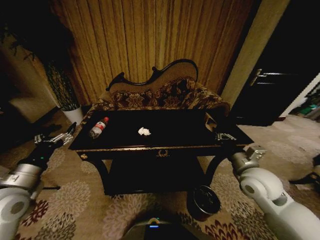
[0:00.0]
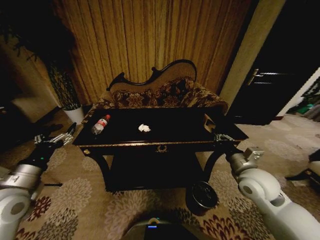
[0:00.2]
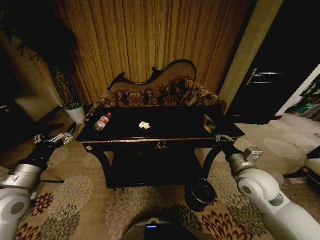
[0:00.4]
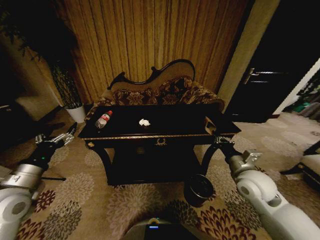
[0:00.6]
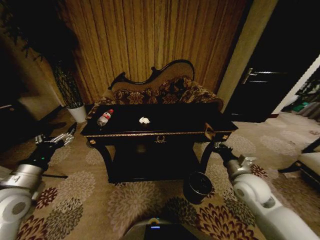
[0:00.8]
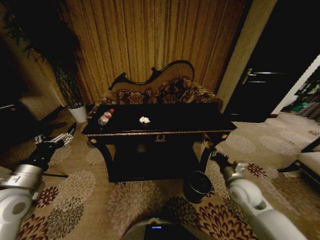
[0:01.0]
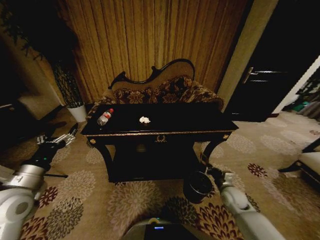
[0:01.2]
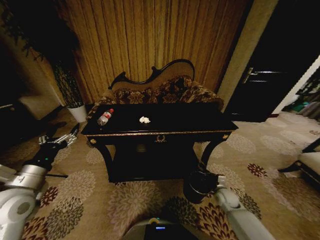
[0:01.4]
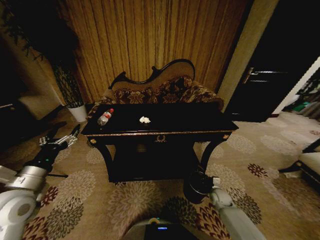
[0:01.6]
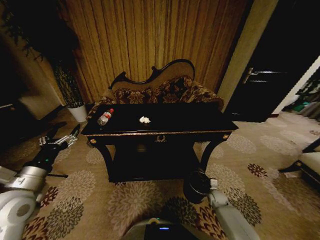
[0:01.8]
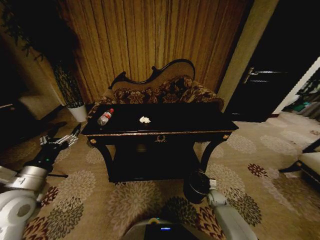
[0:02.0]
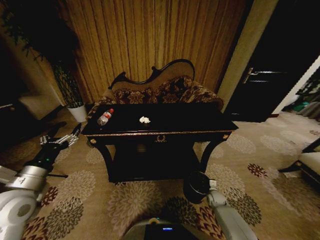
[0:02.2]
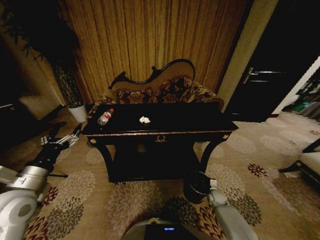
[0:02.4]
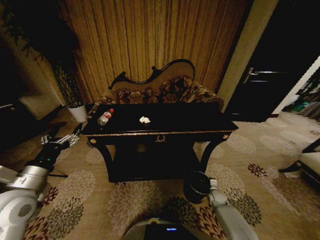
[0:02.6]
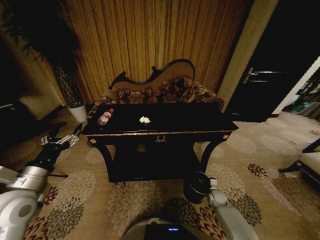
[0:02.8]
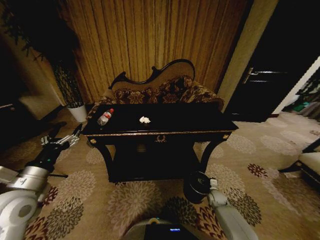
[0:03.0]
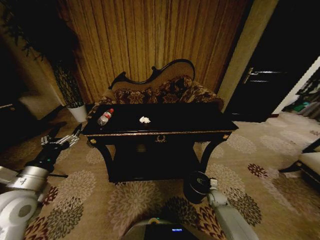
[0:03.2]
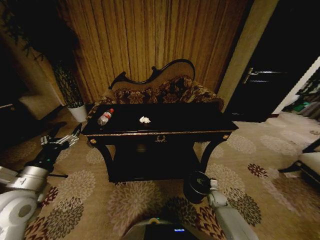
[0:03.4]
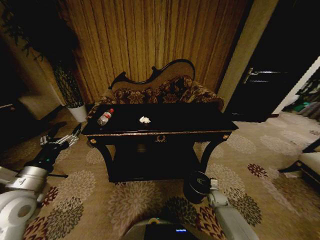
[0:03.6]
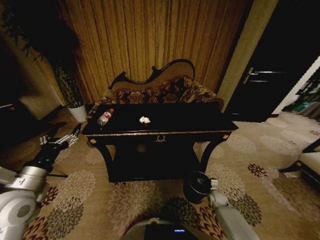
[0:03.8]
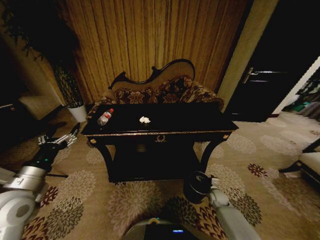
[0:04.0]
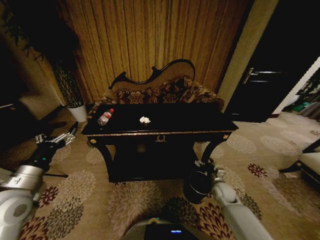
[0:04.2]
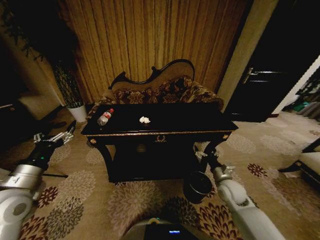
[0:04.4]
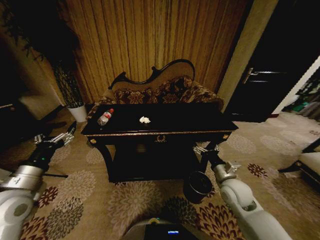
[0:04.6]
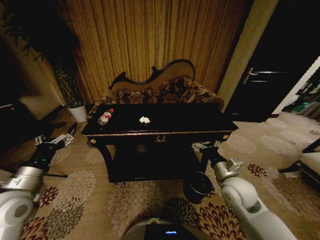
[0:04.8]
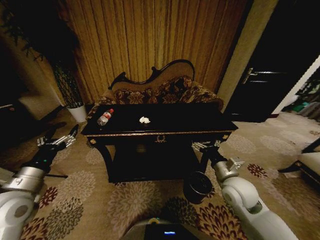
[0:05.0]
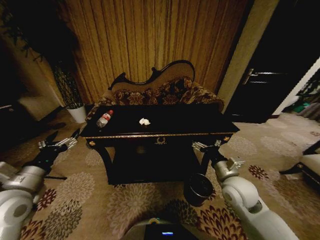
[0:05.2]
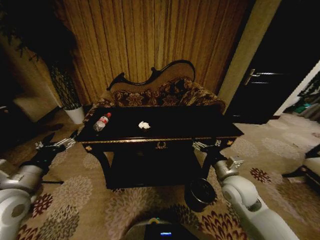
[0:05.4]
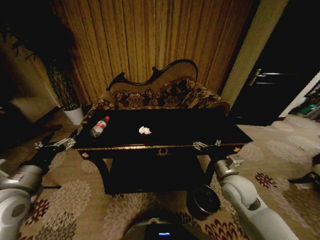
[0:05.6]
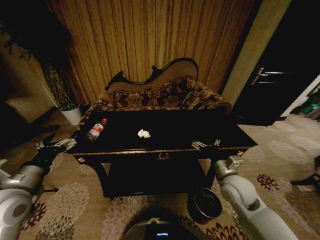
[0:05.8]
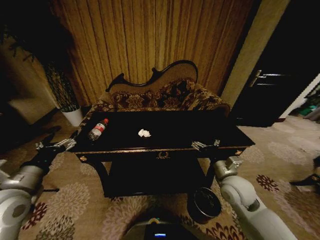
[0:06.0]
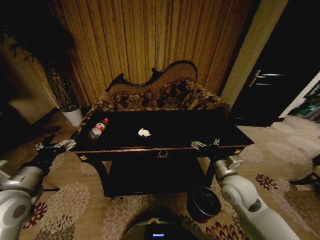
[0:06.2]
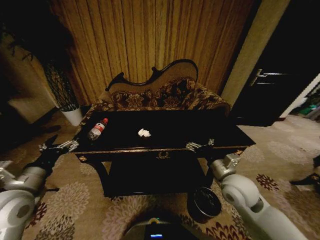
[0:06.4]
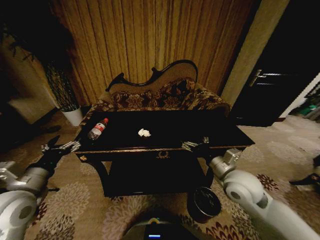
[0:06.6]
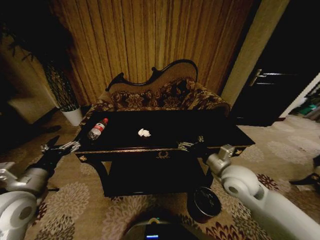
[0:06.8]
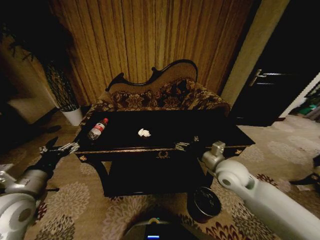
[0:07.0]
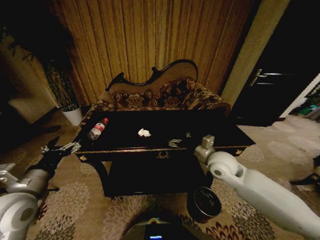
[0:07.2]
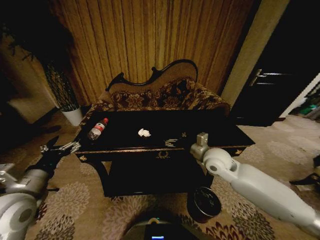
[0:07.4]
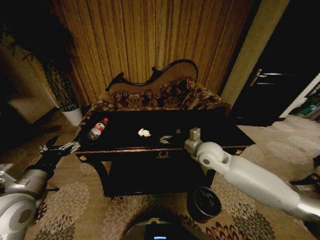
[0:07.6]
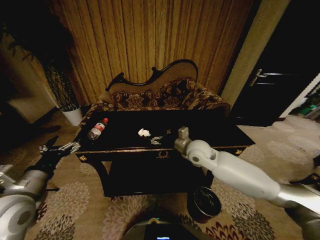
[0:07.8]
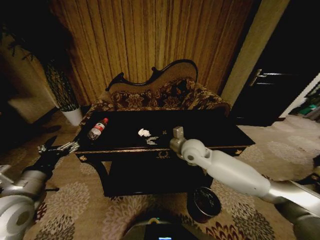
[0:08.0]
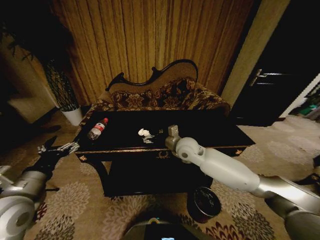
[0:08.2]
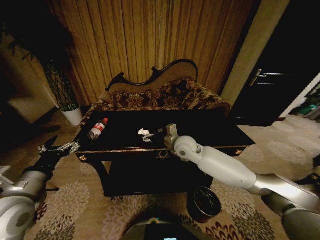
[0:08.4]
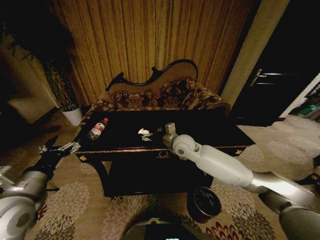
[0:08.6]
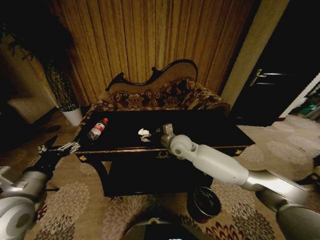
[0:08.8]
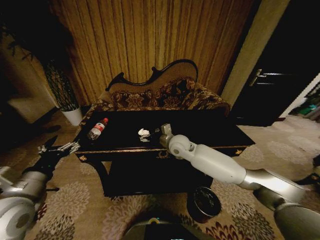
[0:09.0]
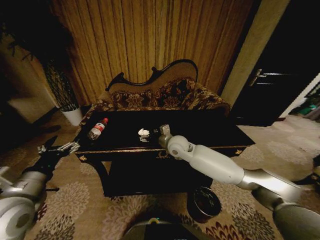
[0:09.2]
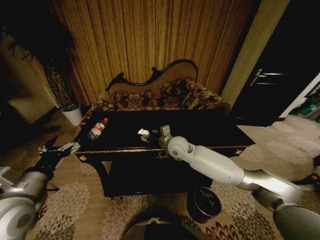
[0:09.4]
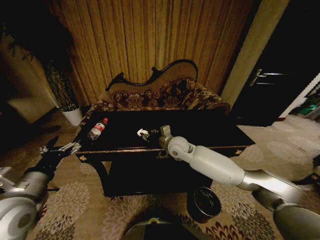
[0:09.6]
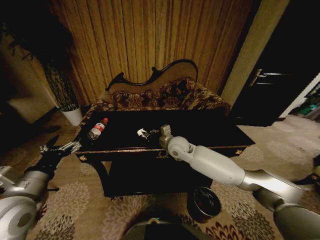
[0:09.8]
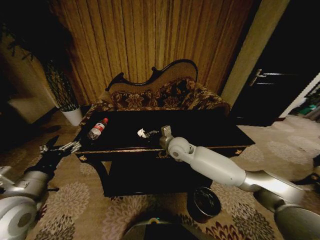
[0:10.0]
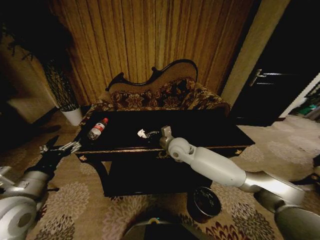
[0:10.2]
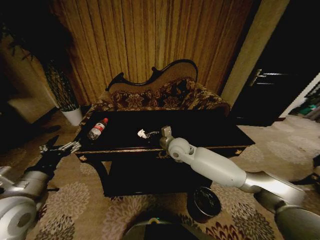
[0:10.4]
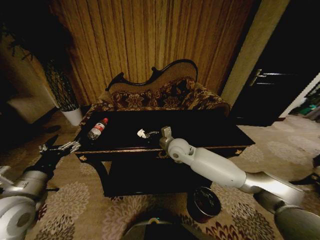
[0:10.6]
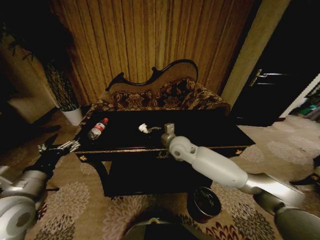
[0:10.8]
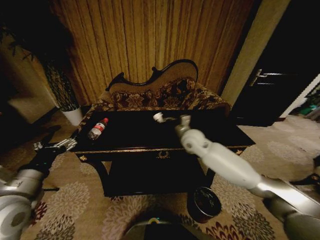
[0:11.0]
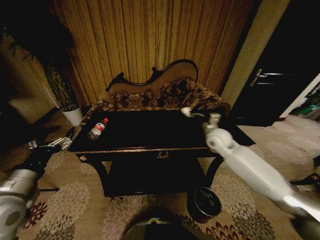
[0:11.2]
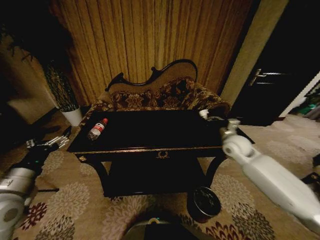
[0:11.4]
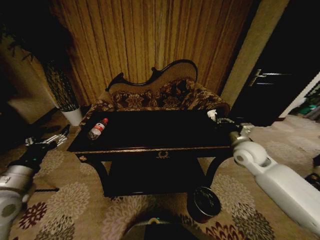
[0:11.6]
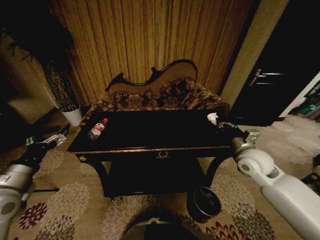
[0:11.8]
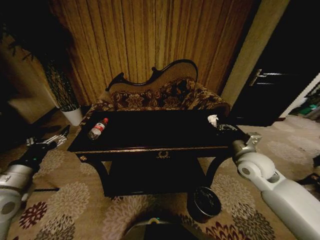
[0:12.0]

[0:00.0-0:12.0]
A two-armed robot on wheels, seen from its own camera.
Task of the whole recording: Move to the front of the table and place the trash on the table into the trash bin.
0:00.0 to 0:01.6: The right gripper moves downward, some 30 cm.
0:01.6 to 0:03.0: The right gripper opens.
0:03.0 to 0:04.4: The right gripper shifts some 20 cm upward.
0:04.4 to 0:06.0: The right gripper goes roughly 10 cm upward.
0:06.0 to 0:07.6: The right gripper shifts about 15 cm forward, to the left and upward.
0:07.6 to 0:09.0: The right gripper shifts about 10 cm to the left and forward.
0:09.0 to 0:10.4: The right gripper closes its fingers.
0:10.4 to 0:12.0: The right gripper moves to the right and backward, about 25 cm. Meanwhile the left gripper moves to the left, about 5 cm.

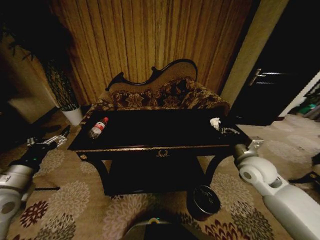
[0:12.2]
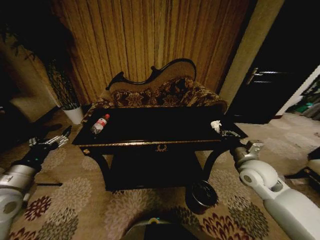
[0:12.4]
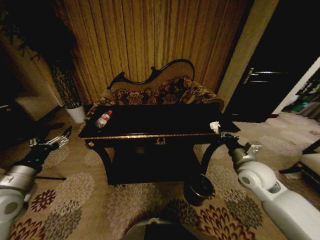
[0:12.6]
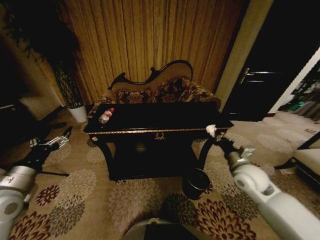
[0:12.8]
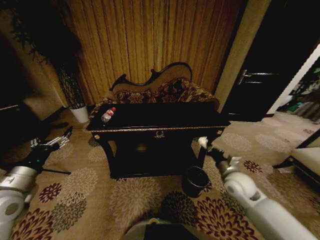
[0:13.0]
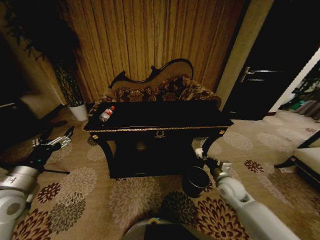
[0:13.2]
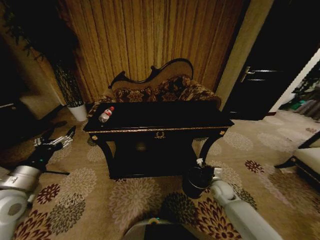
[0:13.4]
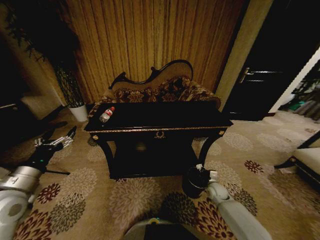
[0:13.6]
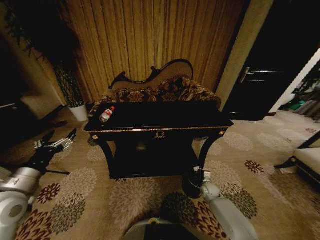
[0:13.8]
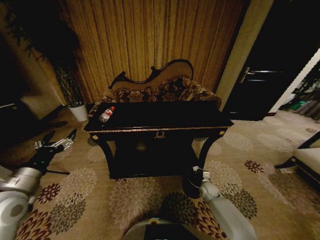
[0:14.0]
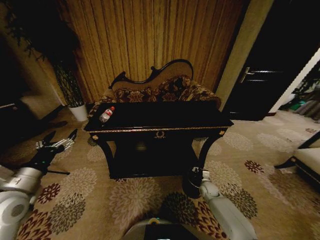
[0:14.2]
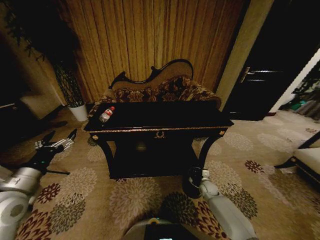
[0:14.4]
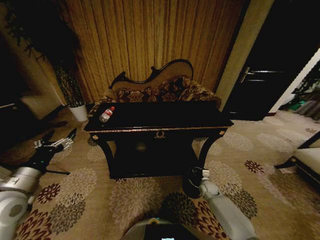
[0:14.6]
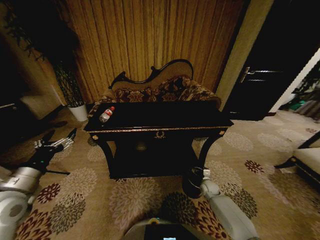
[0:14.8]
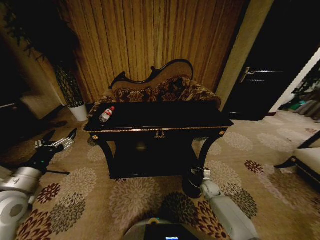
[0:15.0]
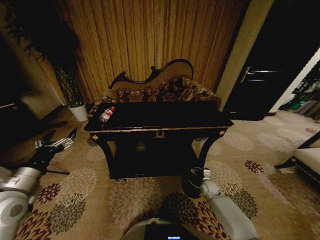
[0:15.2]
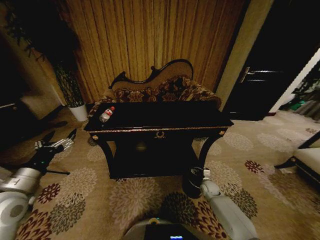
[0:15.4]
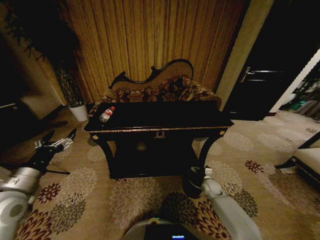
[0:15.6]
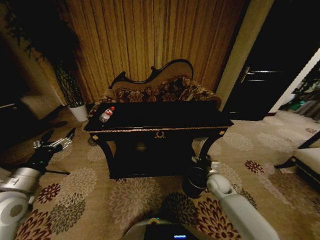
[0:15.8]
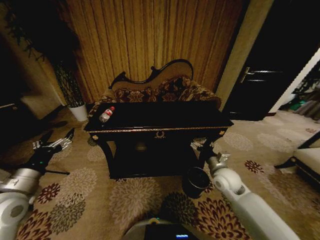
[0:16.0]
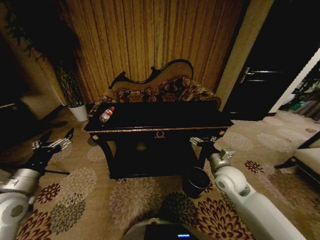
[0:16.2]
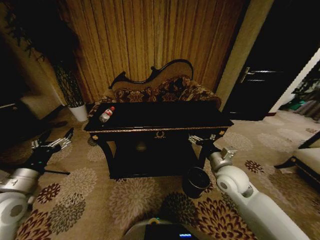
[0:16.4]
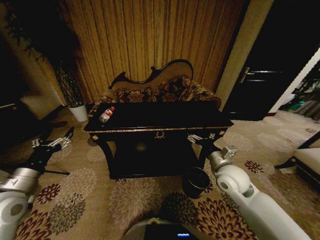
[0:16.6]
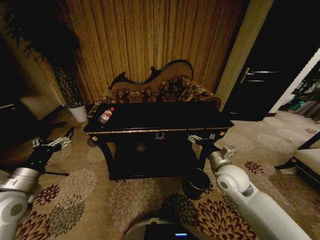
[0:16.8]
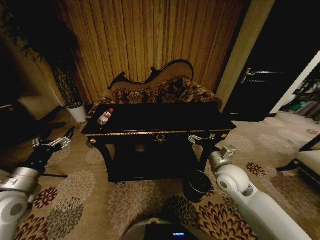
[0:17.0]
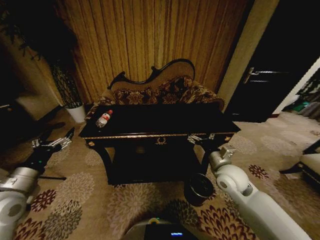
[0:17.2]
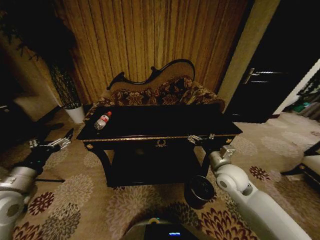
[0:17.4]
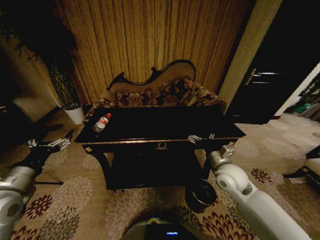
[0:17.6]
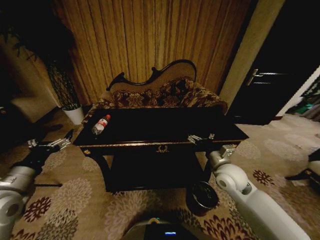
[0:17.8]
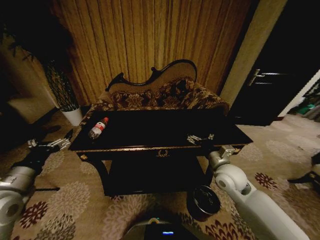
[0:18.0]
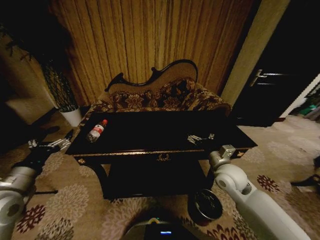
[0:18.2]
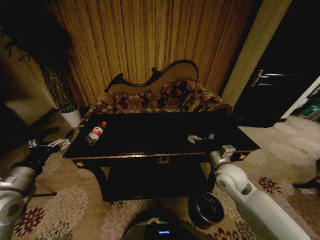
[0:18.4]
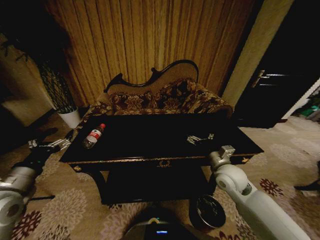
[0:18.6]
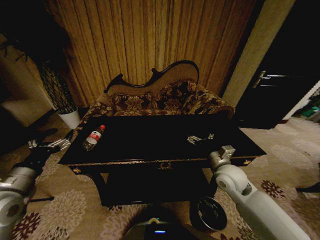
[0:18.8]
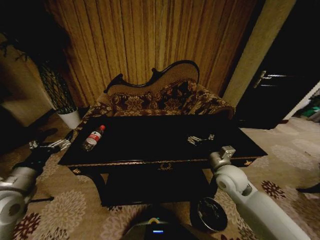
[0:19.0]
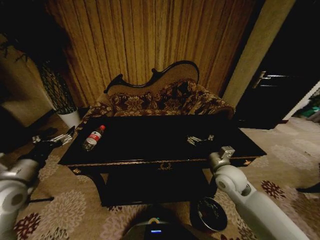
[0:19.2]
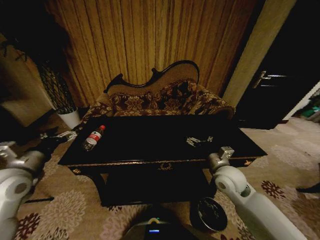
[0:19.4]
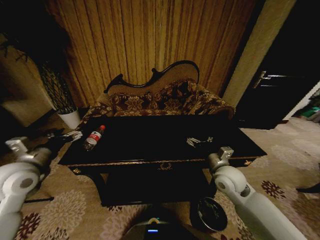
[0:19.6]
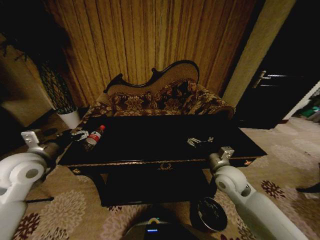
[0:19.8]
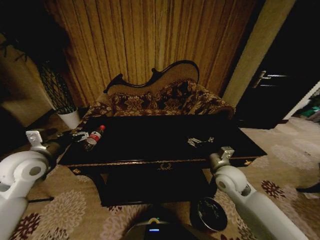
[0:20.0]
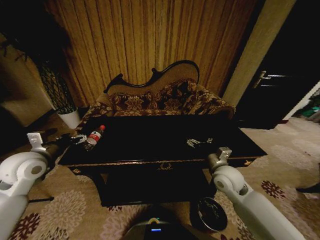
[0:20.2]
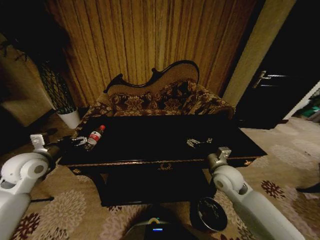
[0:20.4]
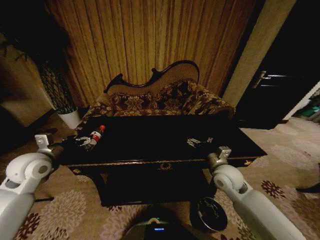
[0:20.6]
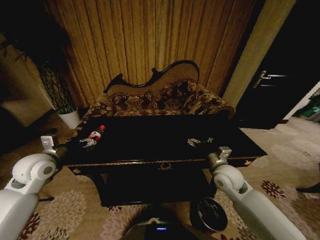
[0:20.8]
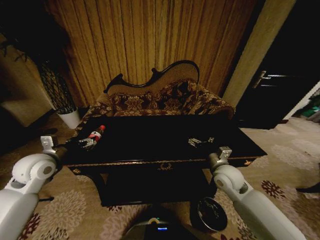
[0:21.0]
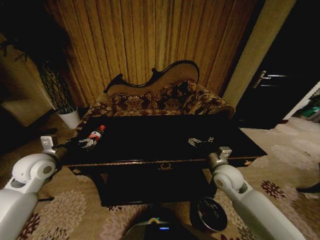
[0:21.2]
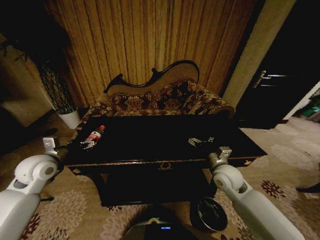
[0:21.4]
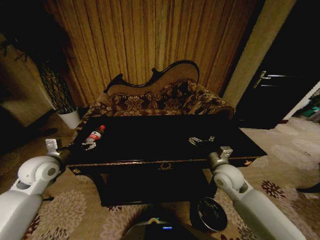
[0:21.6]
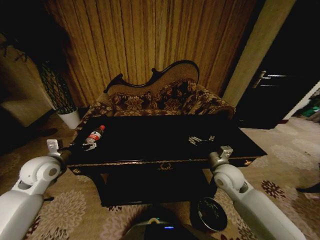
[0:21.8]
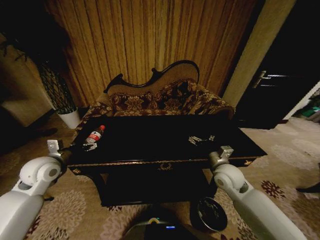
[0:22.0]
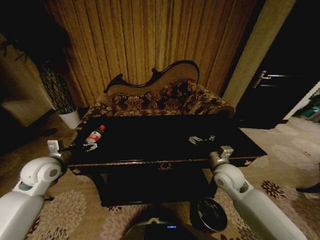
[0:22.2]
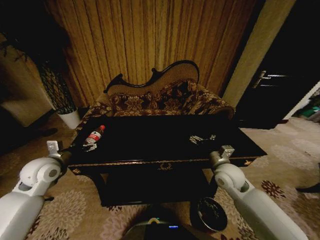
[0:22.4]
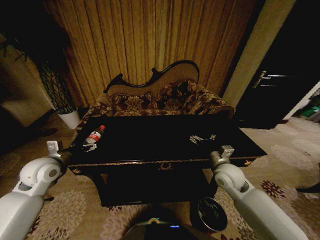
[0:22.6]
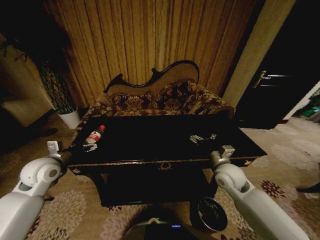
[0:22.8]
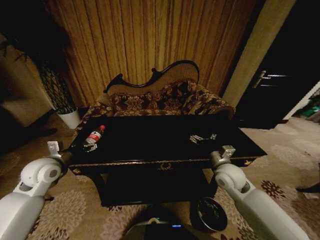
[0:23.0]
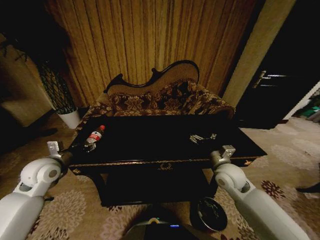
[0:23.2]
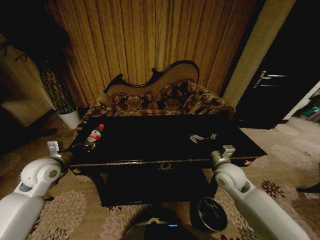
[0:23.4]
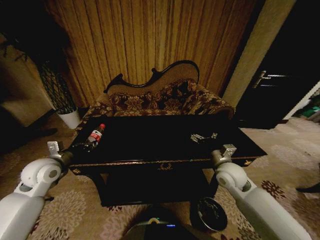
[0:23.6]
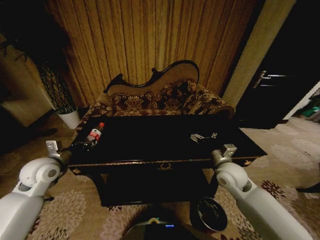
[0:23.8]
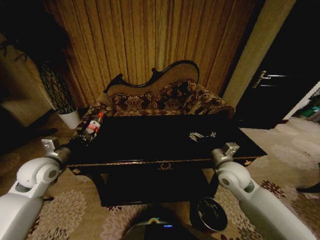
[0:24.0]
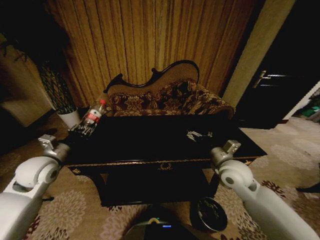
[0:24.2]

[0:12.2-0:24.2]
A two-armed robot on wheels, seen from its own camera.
Task of the whole recording: Move to the front of the table and place the trash on the table into the trash bin.
0:12.2 to 0:13.8: The right gripper goes approximately 30 cm downward.
0:15.2 to 0:16.6: The right gripper shifts roughly 30 cm upward.
0:18.2 to 0:19.8: The left gripper is displaced forward by roughly 10 cm.
0:19.8 to 0:21.2: The left gripper moves roughly 5 cm.
0:21.2 to 0:22.6: The grippers make only small movements.
0:22.6 to 0:24.2: The left gripper closes up.
